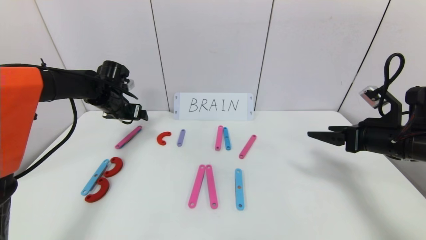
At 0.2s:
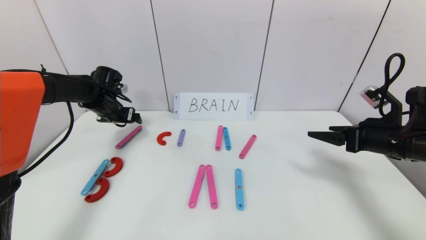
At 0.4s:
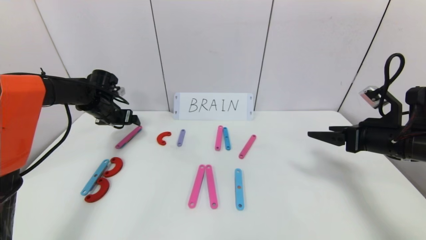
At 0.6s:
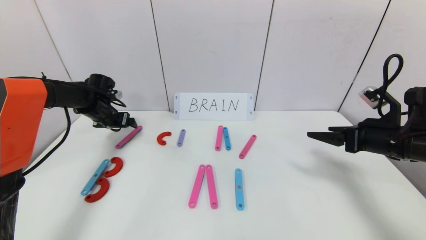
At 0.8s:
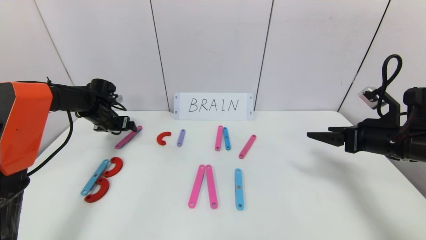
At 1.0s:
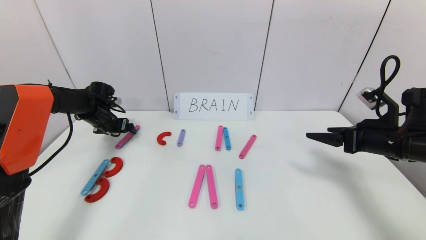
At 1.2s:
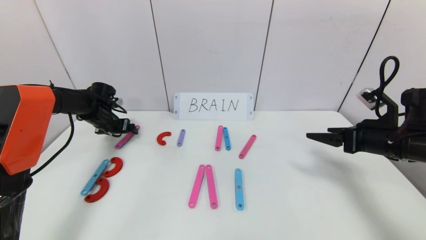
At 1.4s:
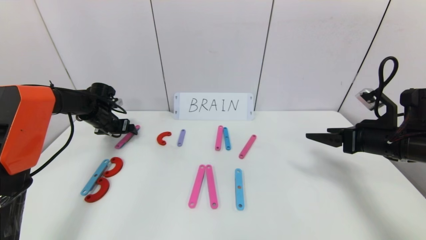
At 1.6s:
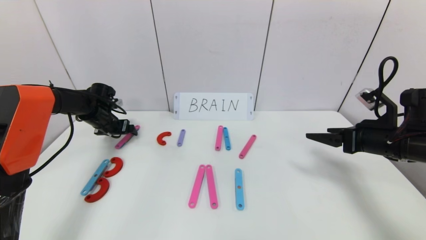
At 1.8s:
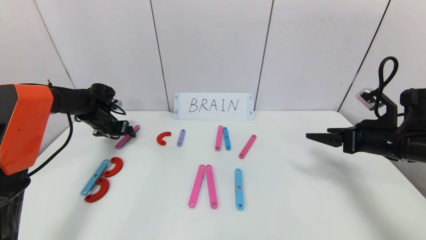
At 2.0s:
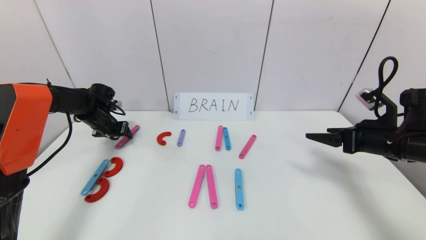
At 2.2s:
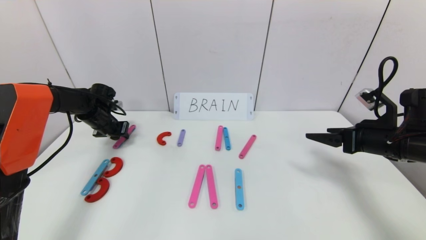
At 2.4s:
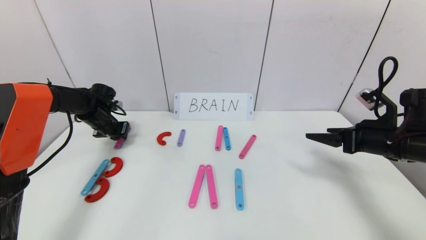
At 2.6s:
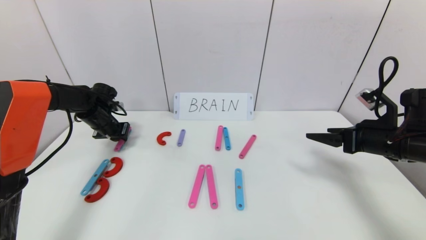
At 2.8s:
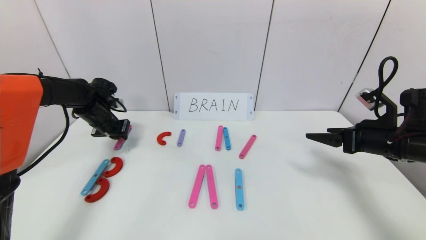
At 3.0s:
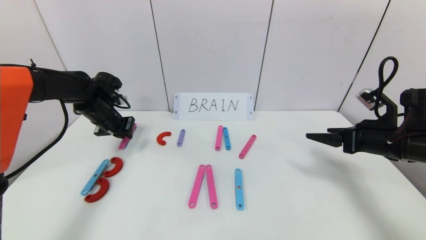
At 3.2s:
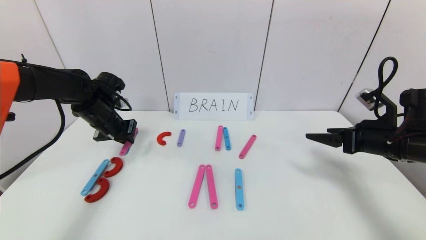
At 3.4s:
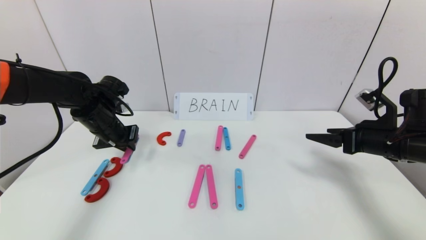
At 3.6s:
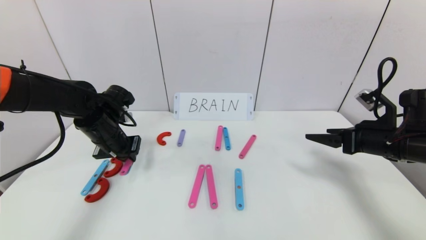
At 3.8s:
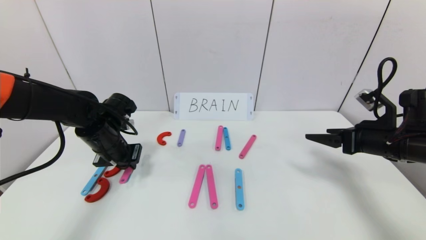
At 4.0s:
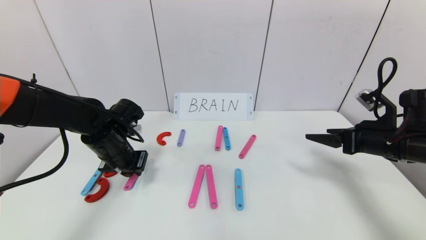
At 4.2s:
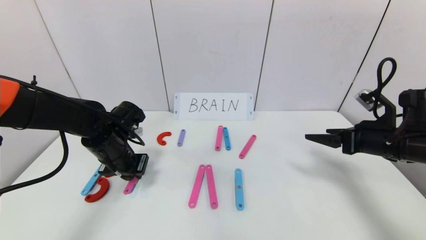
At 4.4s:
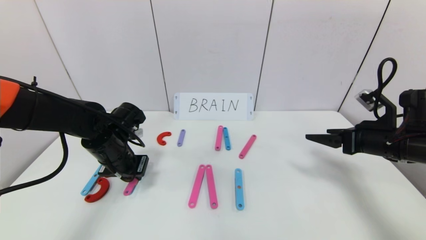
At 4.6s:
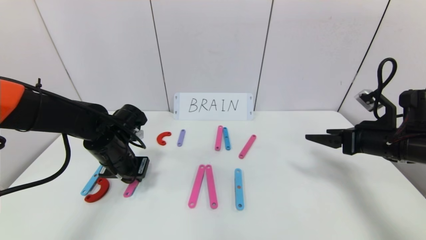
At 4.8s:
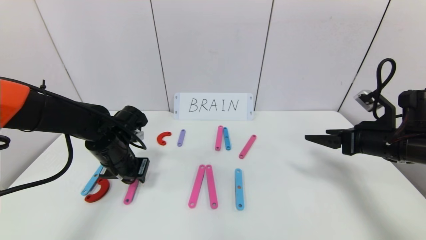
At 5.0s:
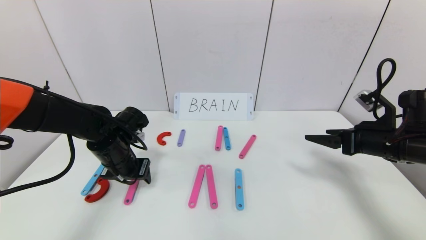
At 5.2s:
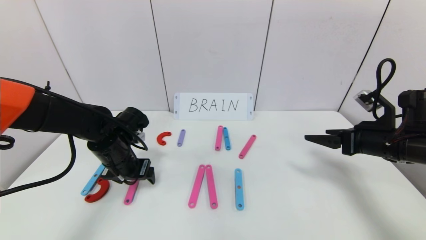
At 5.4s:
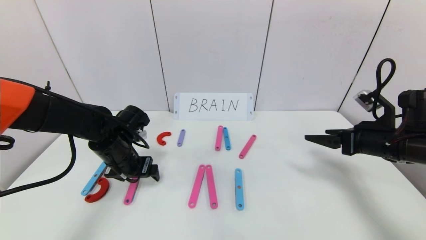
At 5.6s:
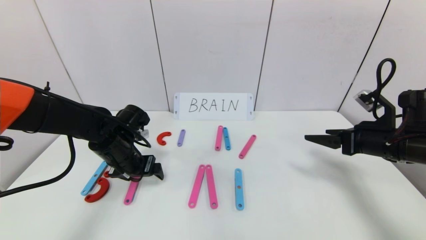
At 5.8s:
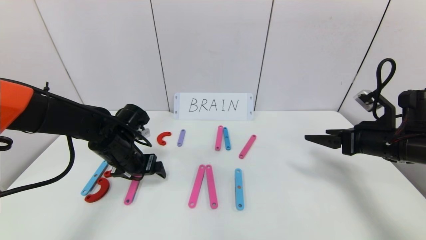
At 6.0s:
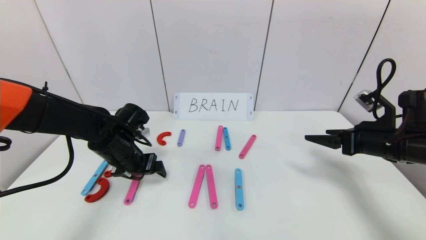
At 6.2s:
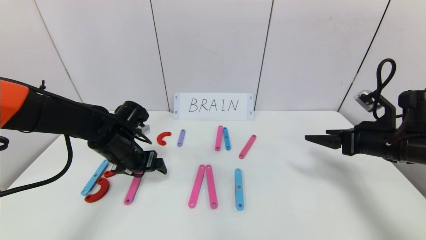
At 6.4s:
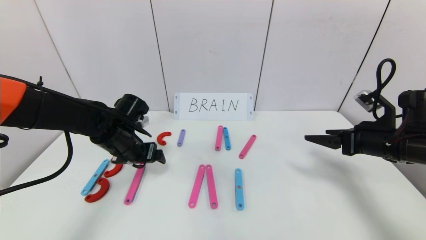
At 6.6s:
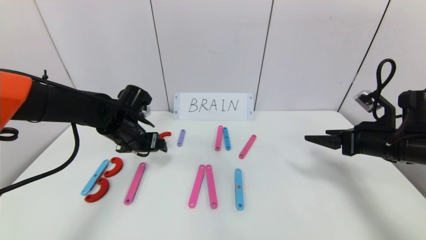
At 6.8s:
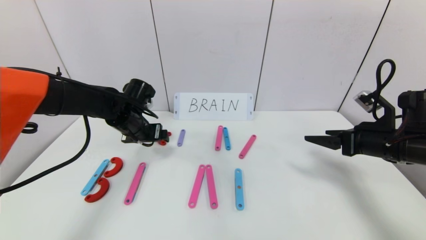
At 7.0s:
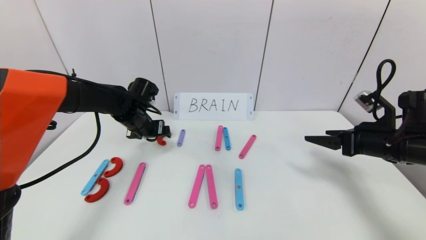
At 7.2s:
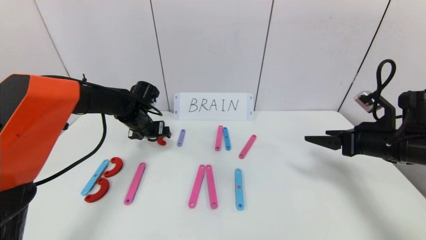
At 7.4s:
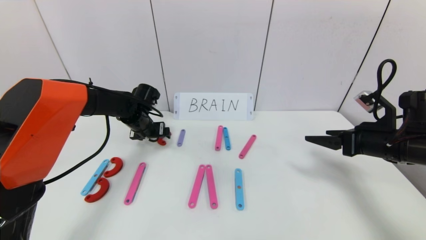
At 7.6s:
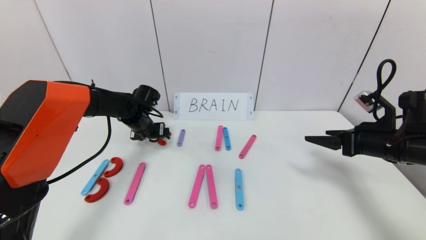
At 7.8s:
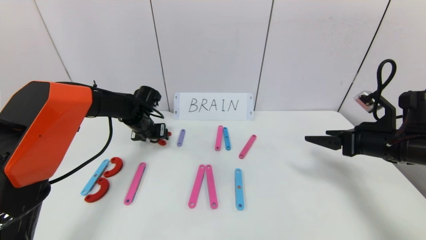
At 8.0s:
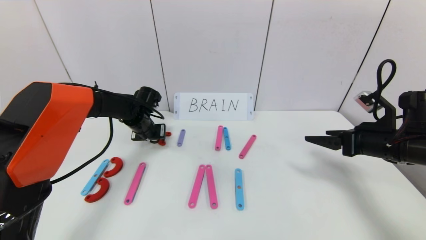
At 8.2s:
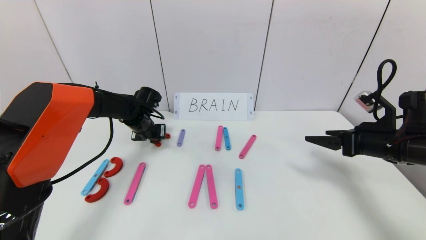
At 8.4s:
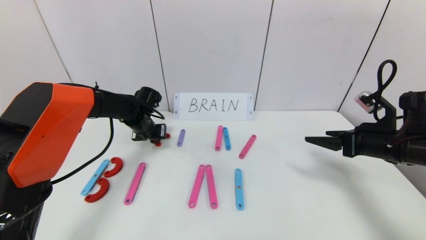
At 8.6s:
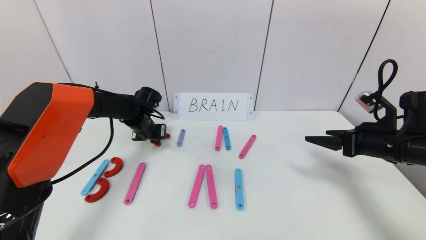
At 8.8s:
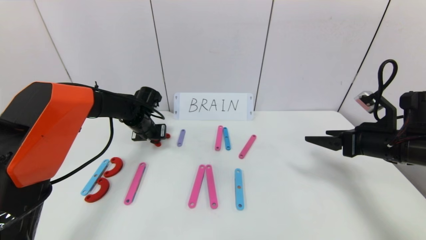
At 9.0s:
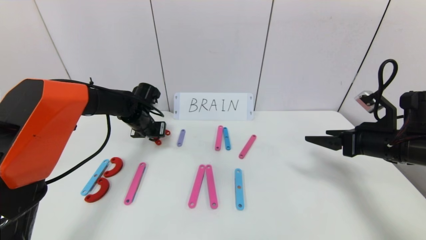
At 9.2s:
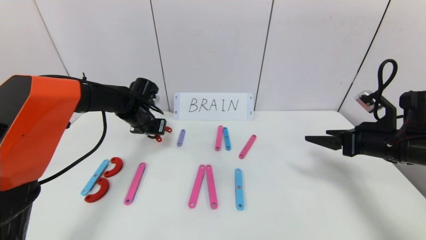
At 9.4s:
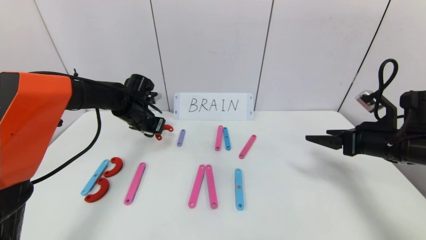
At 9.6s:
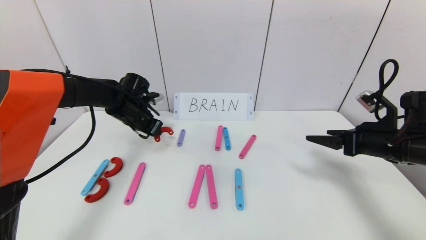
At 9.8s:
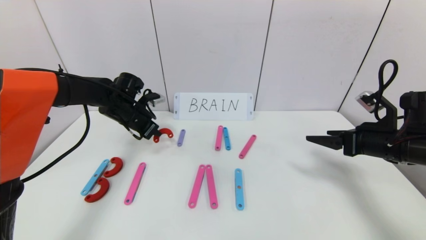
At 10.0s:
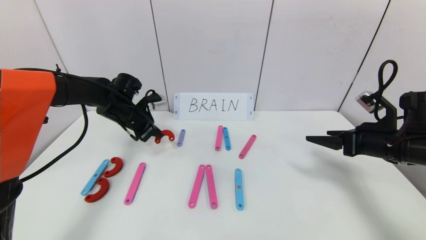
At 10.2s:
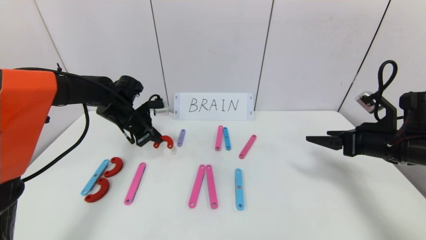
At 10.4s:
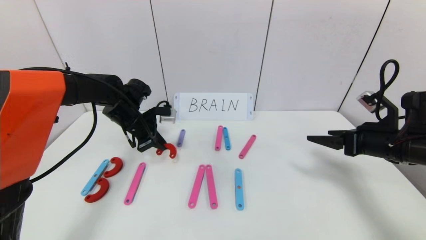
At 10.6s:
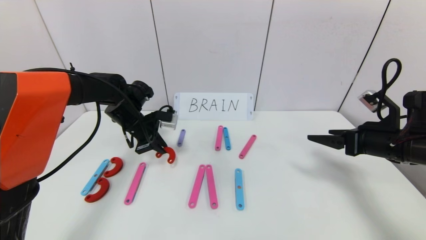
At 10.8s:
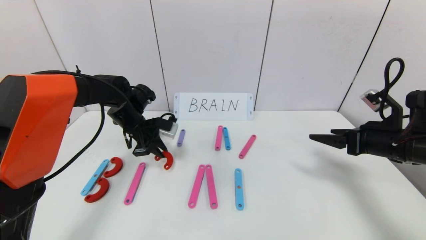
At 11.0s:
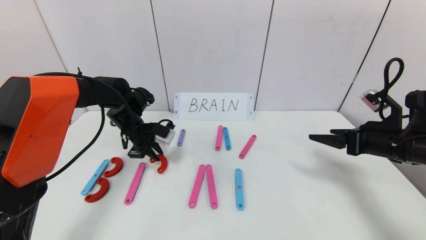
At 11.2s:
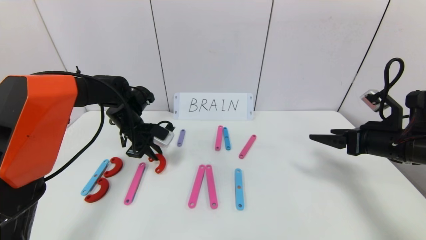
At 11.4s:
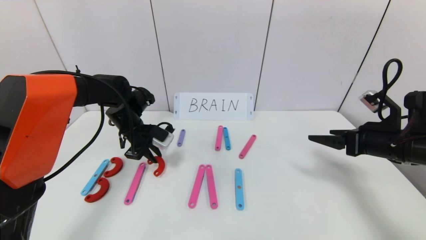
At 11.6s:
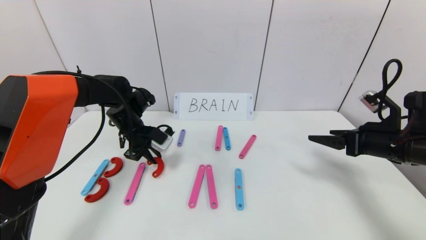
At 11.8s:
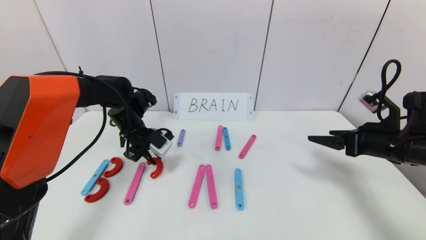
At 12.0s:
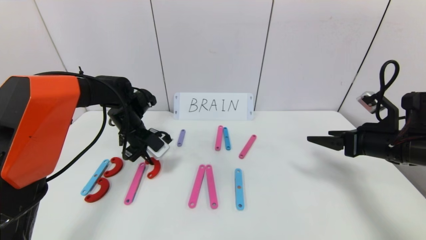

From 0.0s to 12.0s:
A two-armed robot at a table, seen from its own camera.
Task of the whole recording: rearrange the word baai as brain.
From 0.0s to 1.6s: The left gripper is displaced downward and to the left by approximately 10 cm.
From 1.6s to 3.0s: The left gripper heads backward, upward and to the right, covering some 10 cm, and closes.
From 3.0s to 4.4s: The left gripper moves backward and to the right, roughly 15 cm.
From 4.4s to 6.0s: The left gripper opens up.
From 6.0s to 7.6s: The left gripper heads forward, covering approximately 10 cm.
From 7.6s to 9.0s: The left gripper closes up.

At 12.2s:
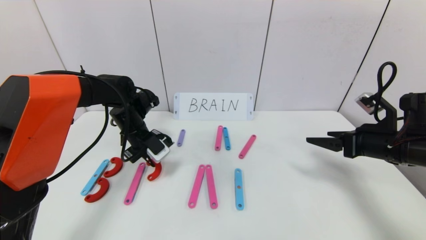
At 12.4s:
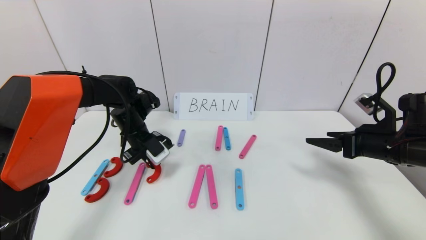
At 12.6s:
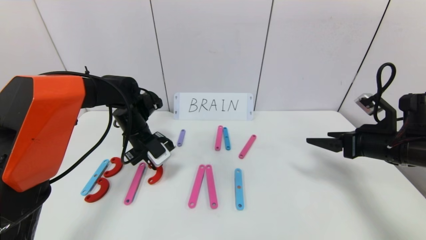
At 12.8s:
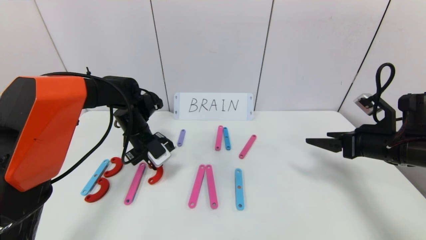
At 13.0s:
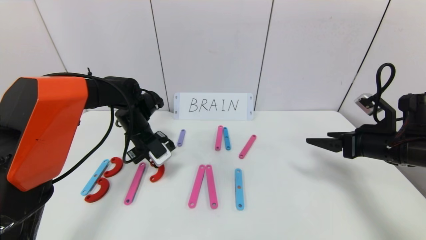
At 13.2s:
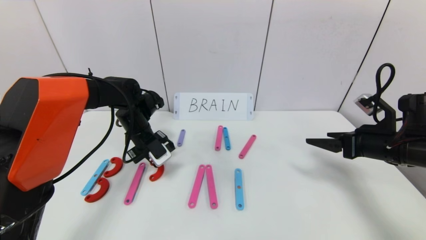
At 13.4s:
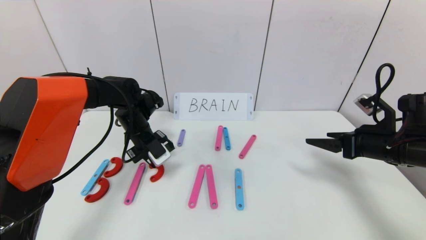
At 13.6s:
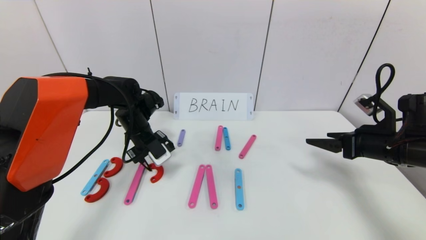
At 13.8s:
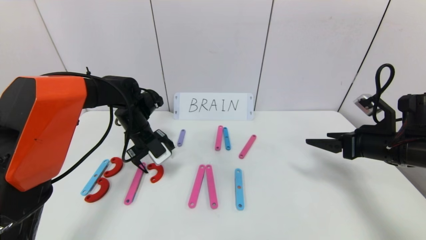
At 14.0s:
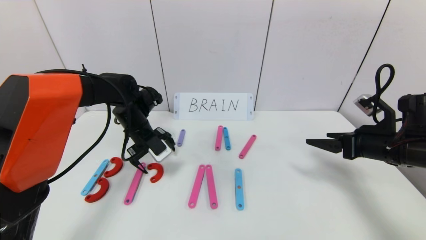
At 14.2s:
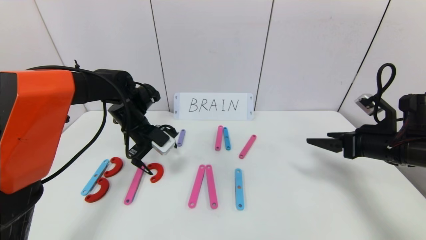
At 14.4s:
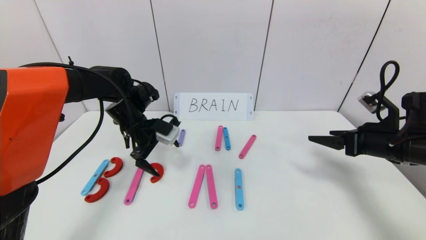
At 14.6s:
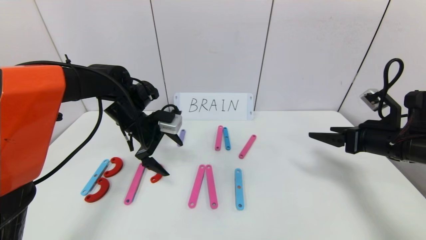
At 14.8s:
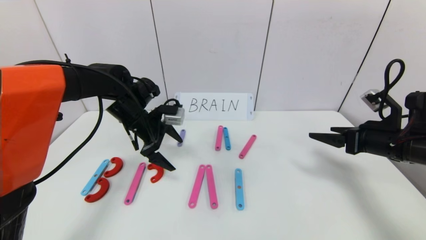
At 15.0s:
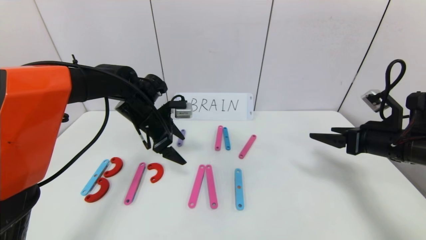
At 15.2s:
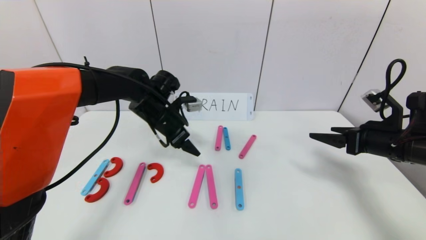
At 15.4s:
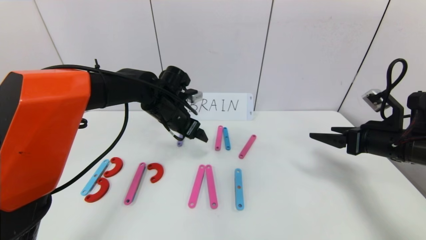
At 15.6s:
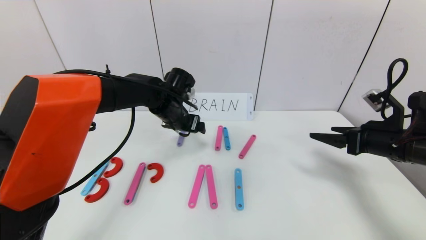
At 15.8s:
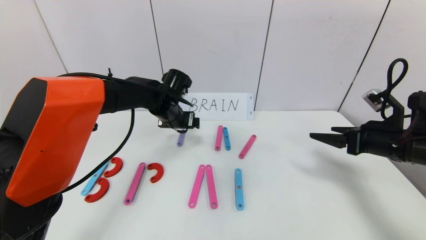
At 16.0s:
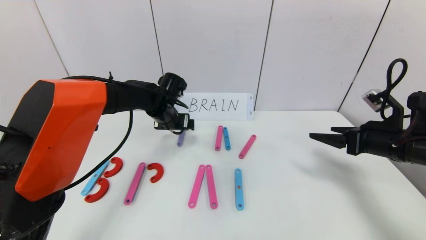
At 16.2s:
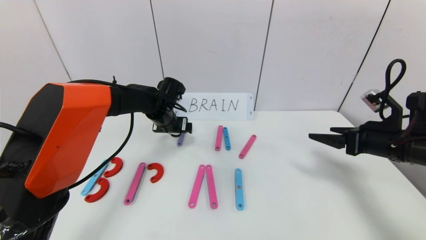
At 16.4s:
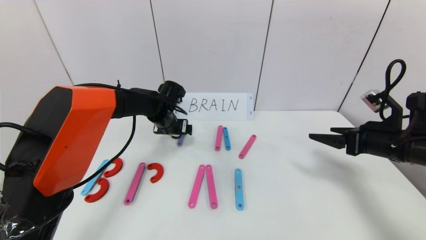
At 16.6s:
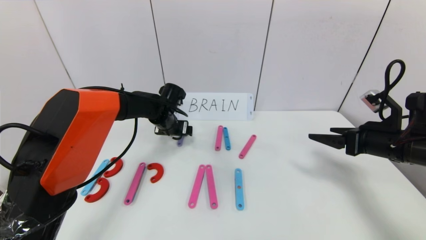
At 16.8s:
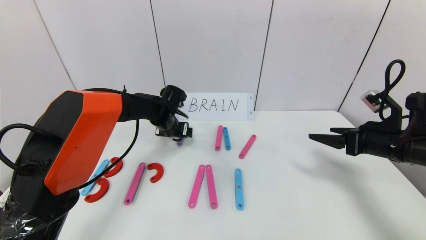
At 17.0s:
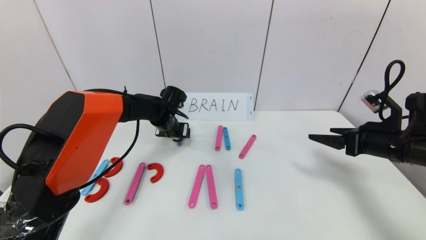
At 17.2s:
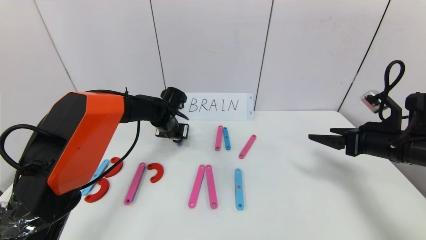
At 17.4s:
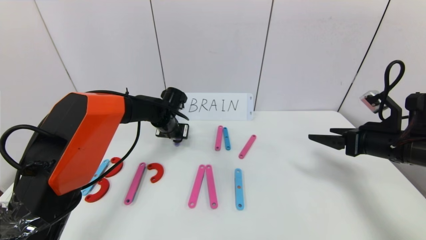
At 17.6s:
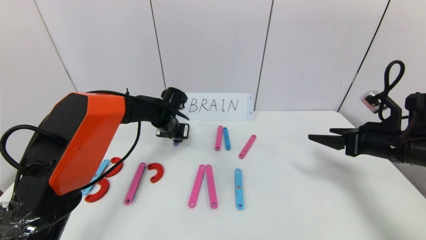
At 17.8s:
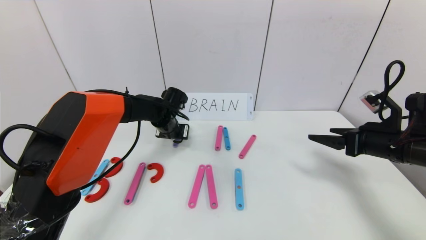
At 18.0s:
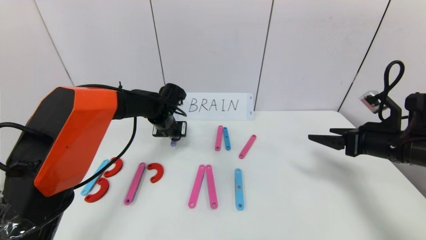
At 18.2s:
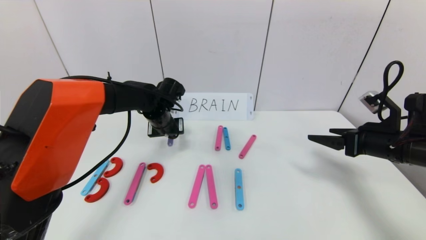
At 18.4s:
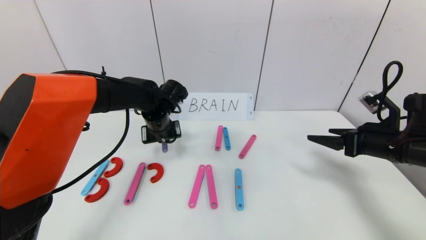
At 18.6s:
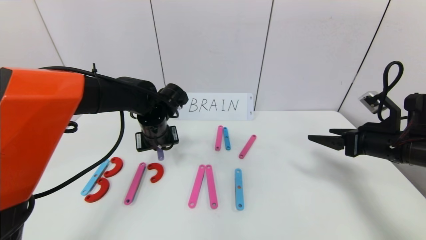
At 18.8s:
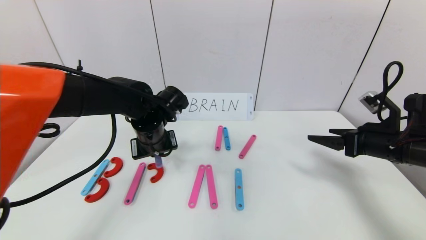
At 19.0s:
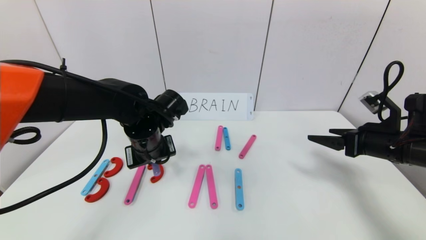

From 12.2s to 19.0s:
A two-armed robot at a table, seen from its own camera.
Task of the whole recording: rearrange the word baai as brain.
From 12.2s to 13.6s: The left gripper opens up.
From 13.6s to 15.0s: The left gripper shifts by approximately 5 cm, and opens its fingers.
From 15.0s to 16.2s: The left gripper shifts some 5 cm forward.
From 16.2s to 17.6s: The left gripper closes.
From 17.6s to 19.0s: The left gripper shifts some 15 cm backward and upward.
